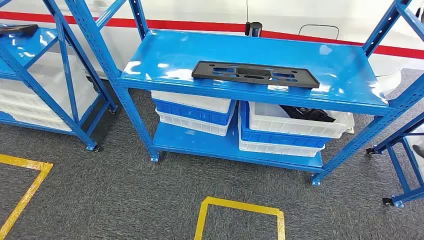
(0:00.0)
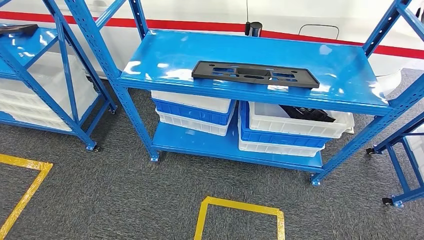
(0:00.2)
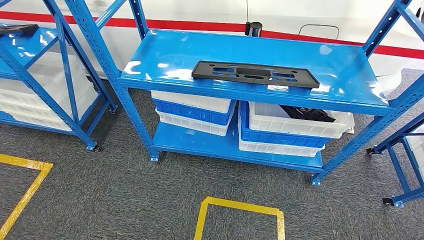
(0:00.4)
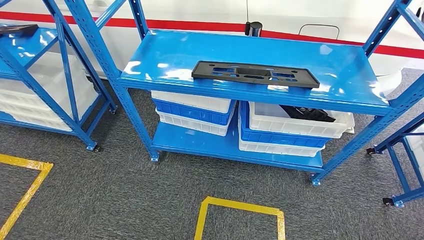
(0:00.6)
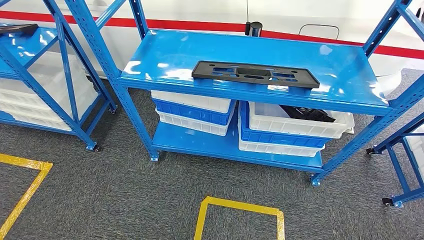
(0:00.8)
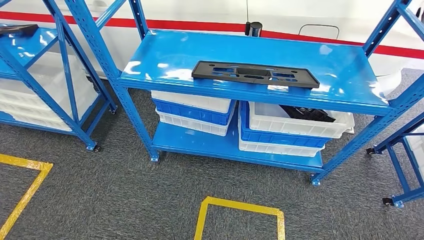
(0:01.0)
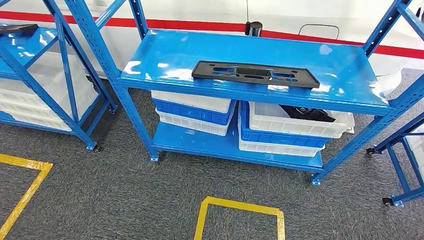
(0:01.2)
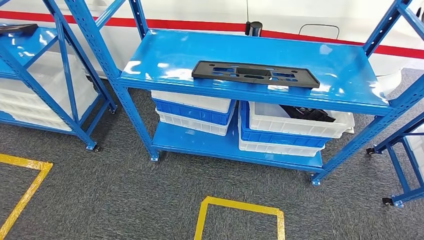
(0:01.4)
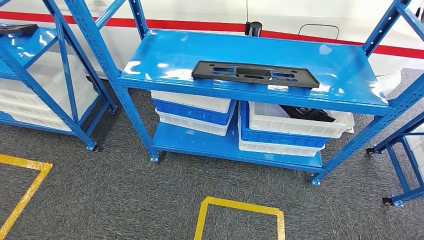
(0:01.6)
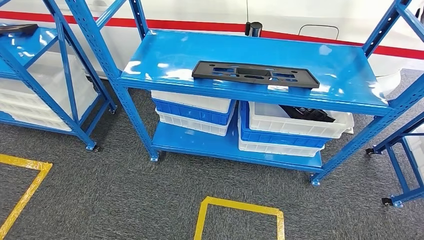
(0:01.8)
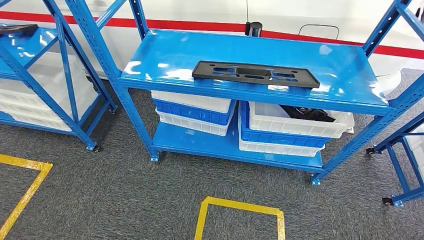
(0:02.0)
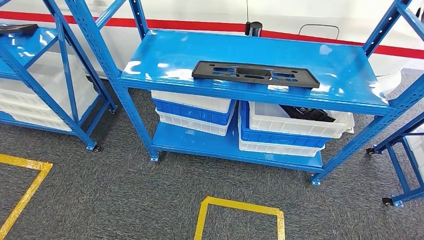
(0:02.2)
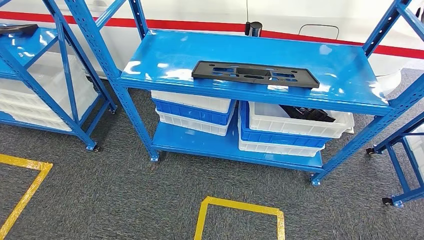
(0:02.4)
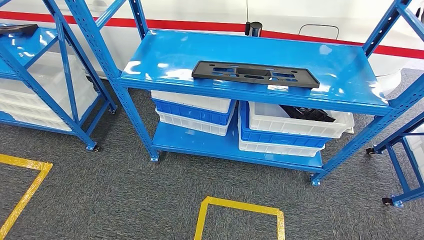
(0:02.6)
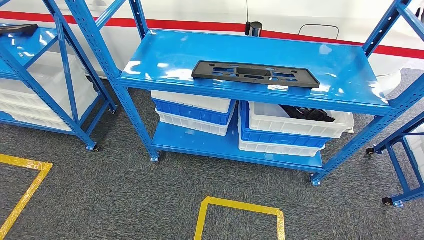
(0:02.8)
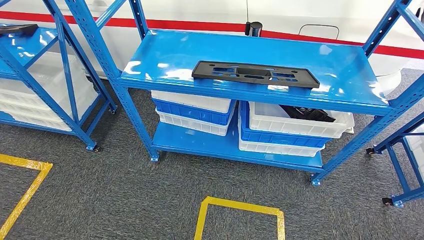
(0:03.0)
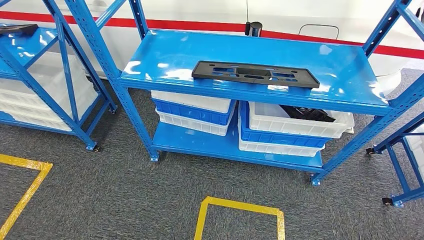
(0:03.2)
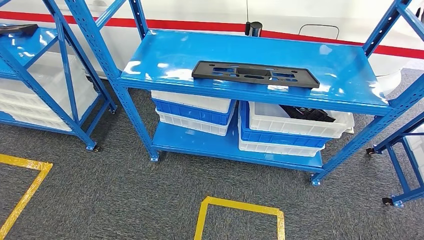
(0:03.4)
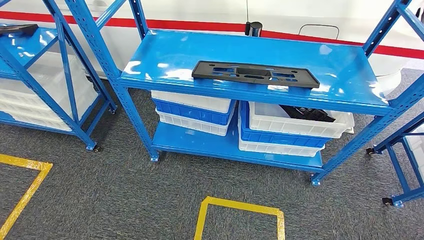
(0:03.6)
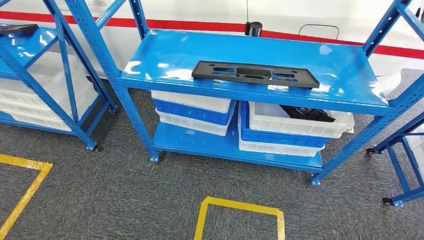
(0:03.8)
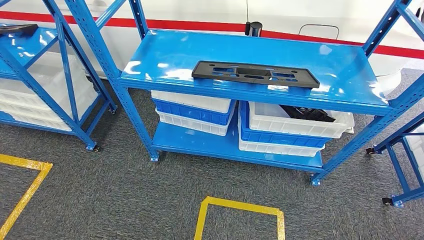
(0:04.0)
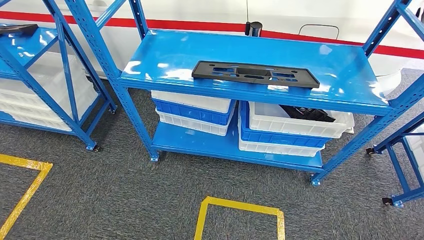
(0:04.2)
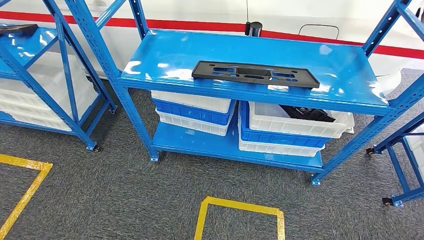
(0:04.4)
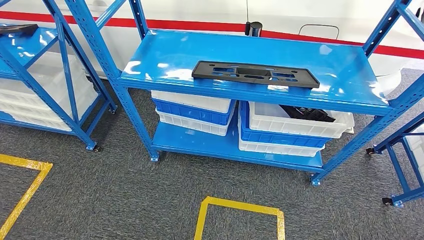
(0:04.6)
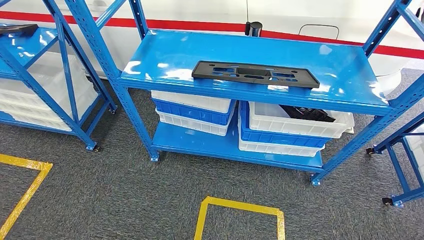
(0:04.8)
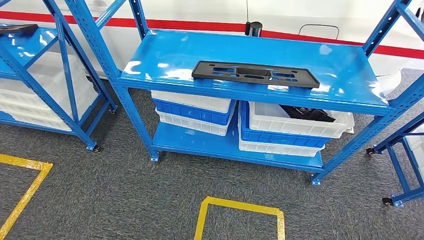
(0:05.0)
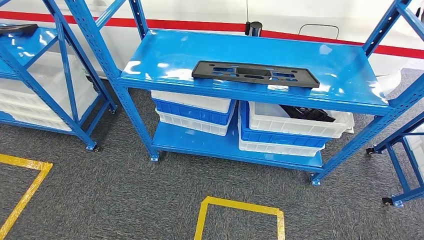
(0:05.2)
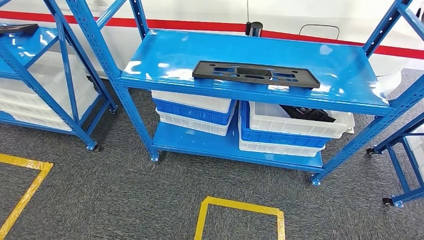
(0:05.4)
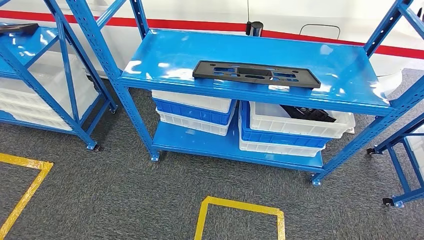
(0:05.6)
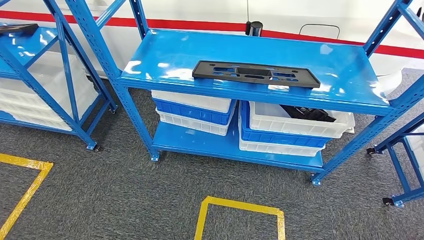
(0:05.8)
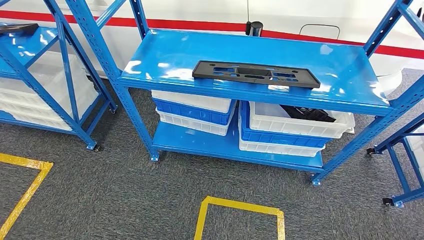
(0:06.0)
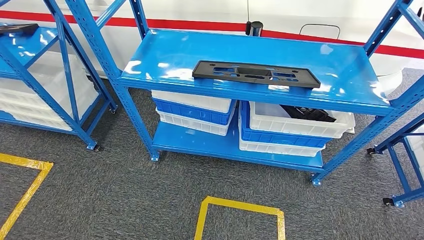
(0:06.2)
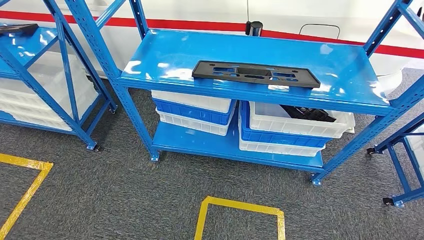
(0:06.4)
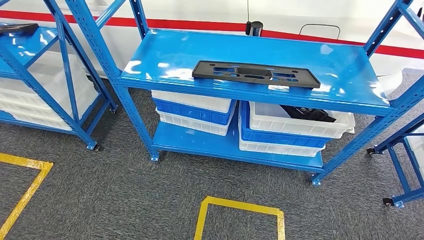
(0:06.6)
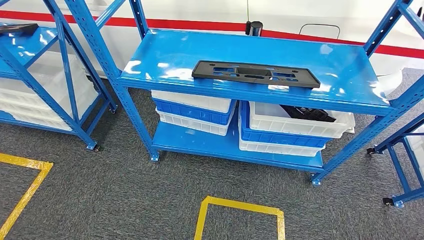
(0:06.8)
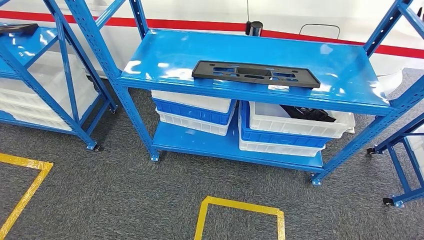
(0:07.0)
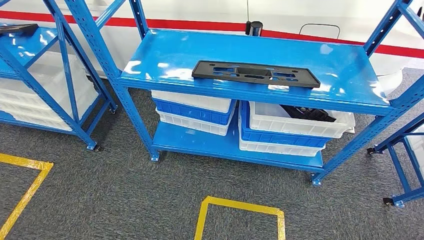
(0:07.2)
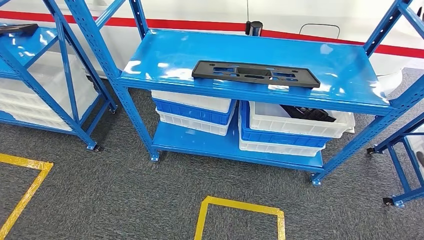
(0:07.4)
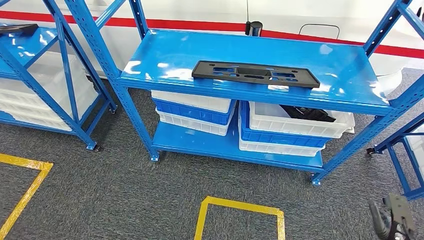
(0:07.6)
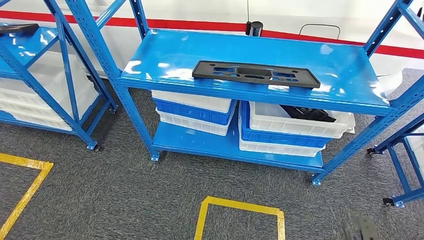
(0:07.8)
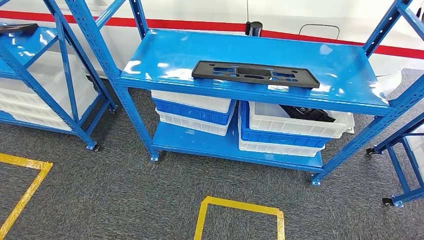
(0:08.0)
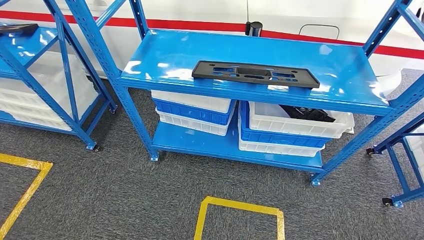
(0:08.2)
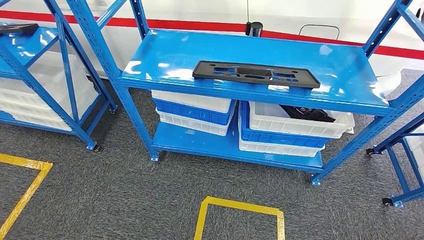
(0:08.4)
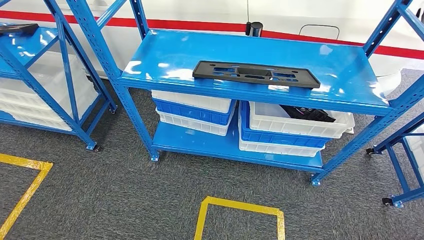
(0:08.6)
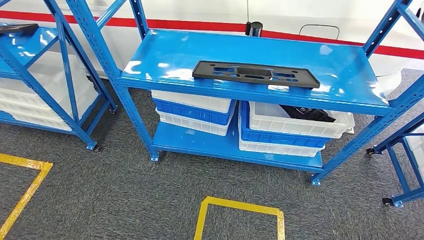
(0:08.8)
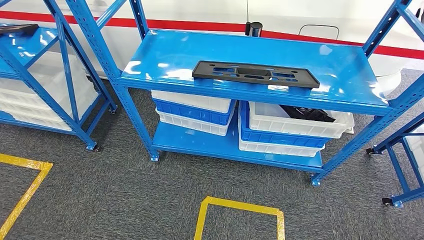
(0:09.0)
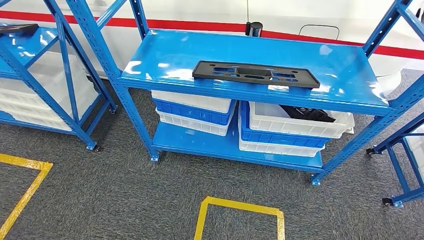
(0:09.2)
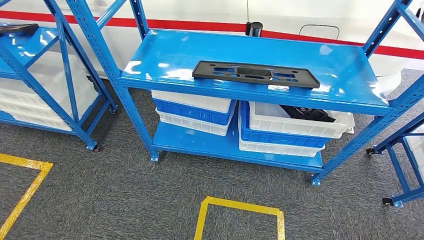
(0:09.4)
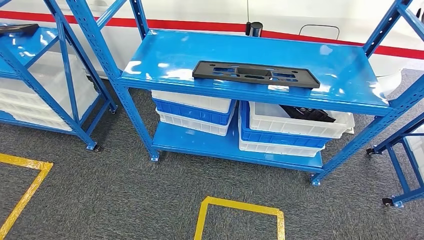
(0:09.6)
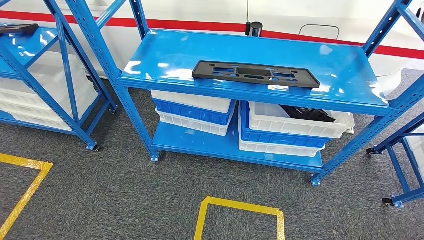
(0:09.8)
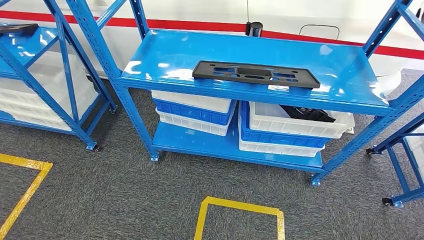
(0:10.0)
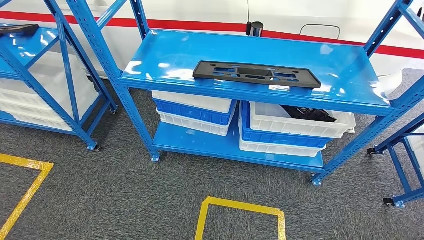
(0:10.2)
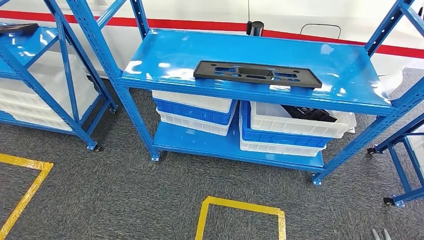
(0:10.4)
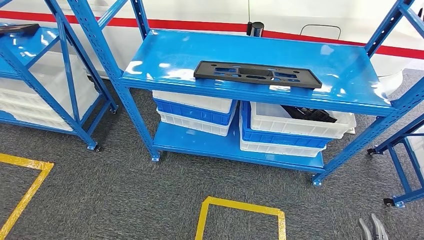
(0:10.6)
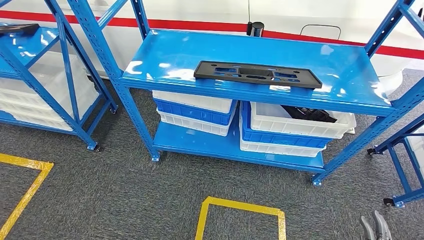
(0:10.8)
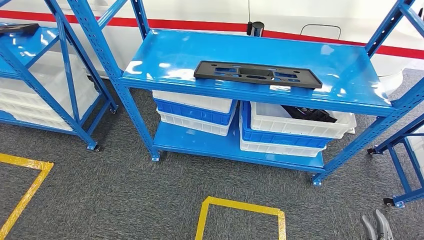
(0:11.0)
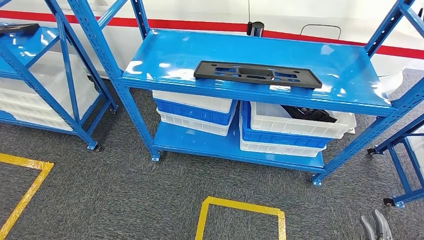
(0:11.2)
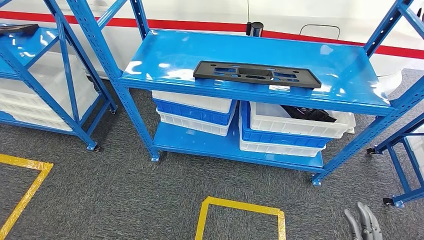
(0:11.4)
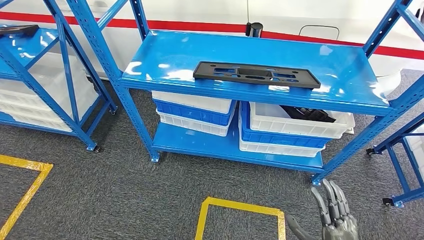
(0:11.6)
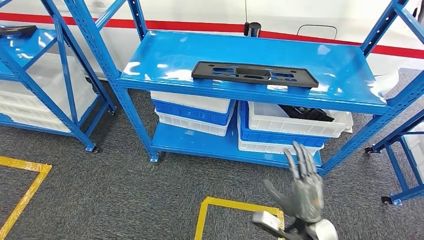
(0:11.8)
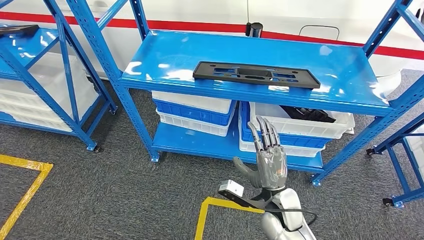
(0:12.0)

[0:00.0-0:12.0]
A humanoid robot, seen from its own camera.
0:03.0 to 0:04.4: Neither hand changes place.
0:04.4 to 0:06.0: The right hand shifts some 15 cm to the right and forward.
0:06.0 to 0:07.6: The right hand goes some 50 cm downward.
0:07.6 to 0:09.0: The right hand goes approximately 35 cm to the left, backward and downward.
0:09.0 to 0:10.4: The left hand goes approximately 10 cm to the right. Meanwhile the right hand travels upward and to the right by roughly 15 cm.
0:10.4 to 0:12.0: The right hand travels forward, to the left and upward by approximately 30 cm.

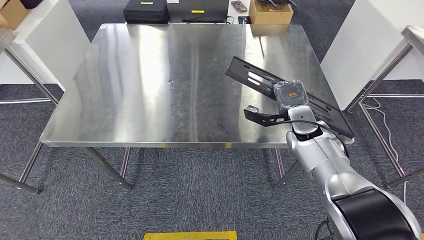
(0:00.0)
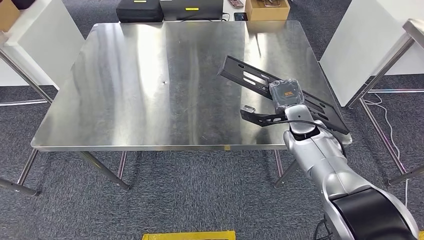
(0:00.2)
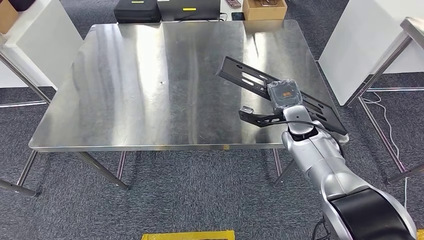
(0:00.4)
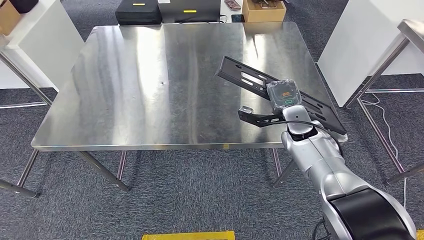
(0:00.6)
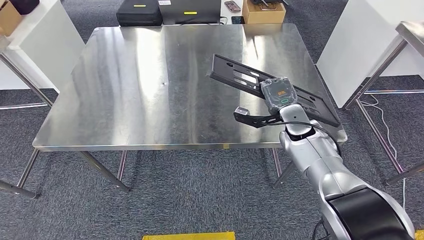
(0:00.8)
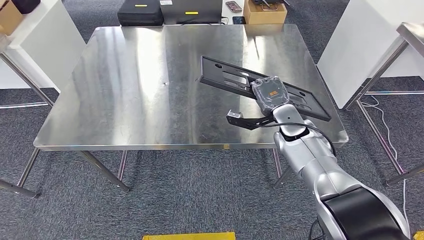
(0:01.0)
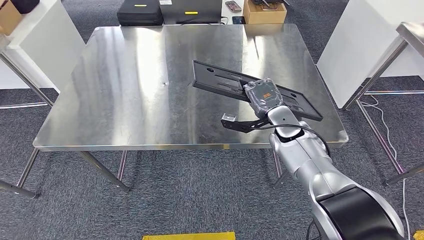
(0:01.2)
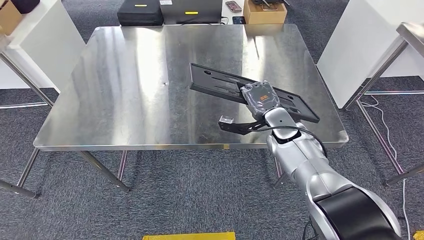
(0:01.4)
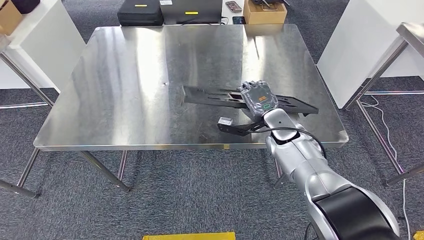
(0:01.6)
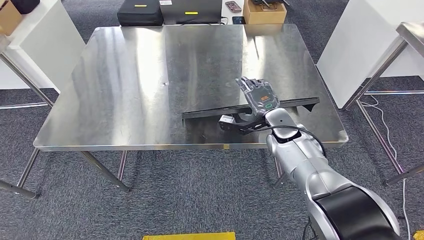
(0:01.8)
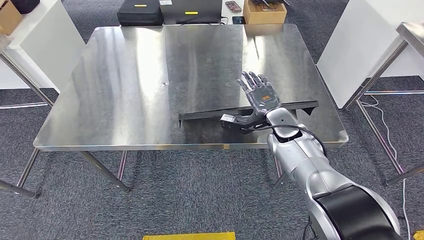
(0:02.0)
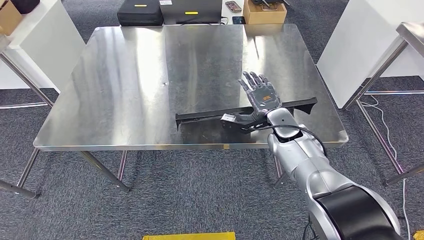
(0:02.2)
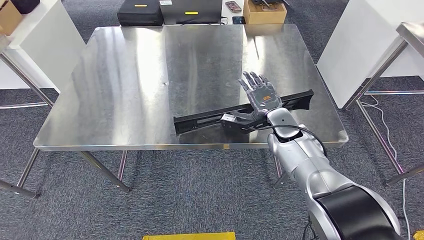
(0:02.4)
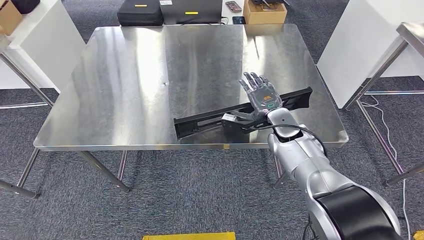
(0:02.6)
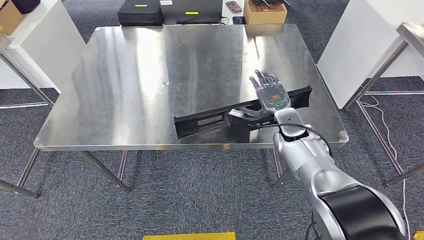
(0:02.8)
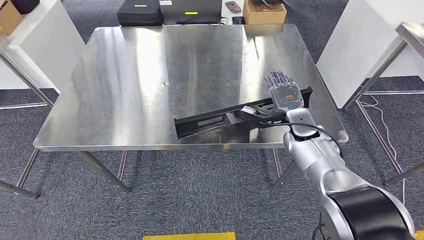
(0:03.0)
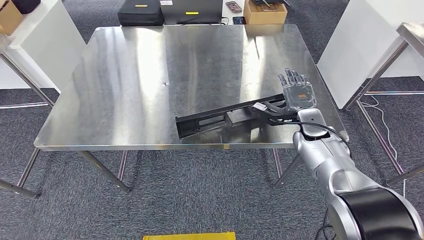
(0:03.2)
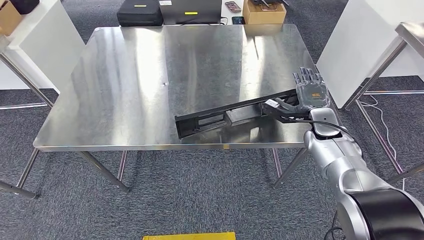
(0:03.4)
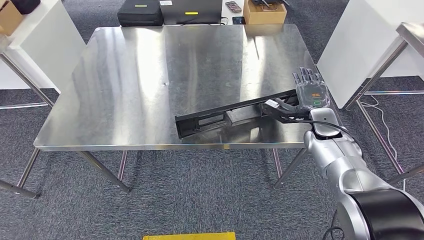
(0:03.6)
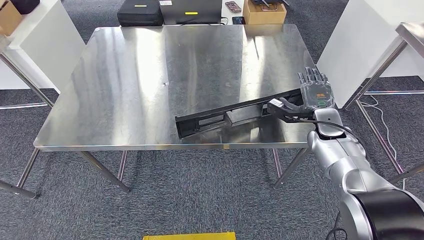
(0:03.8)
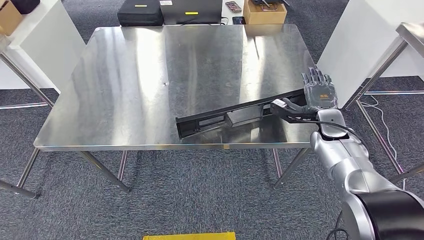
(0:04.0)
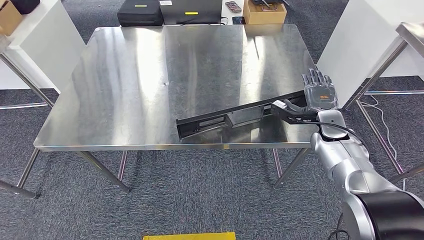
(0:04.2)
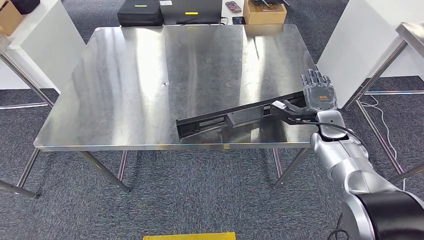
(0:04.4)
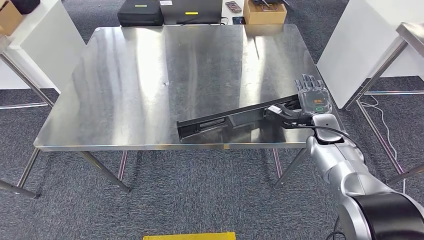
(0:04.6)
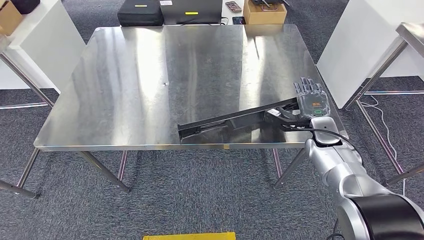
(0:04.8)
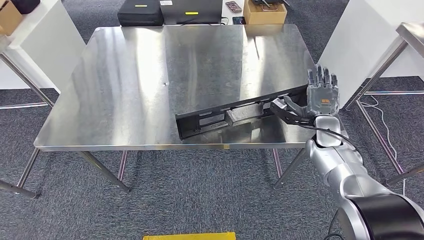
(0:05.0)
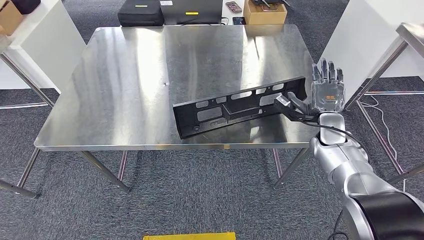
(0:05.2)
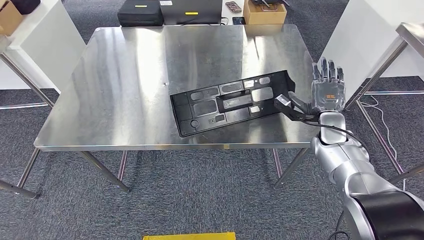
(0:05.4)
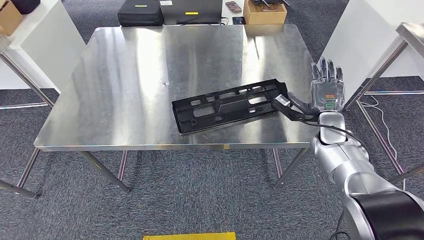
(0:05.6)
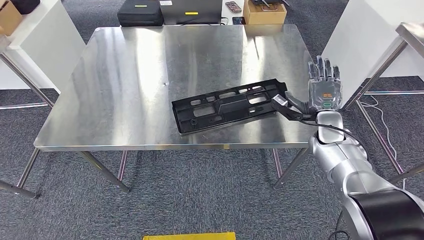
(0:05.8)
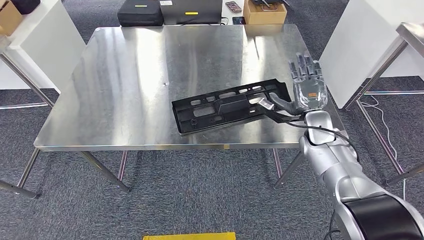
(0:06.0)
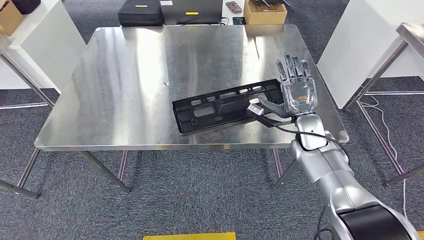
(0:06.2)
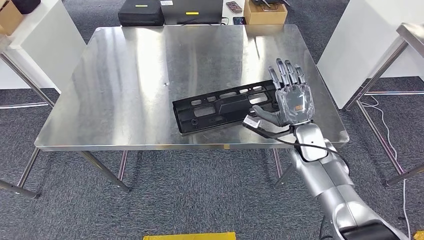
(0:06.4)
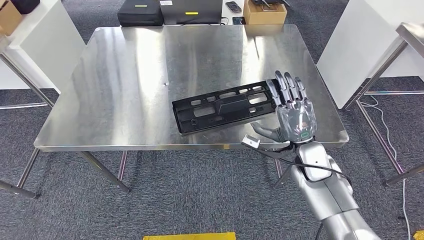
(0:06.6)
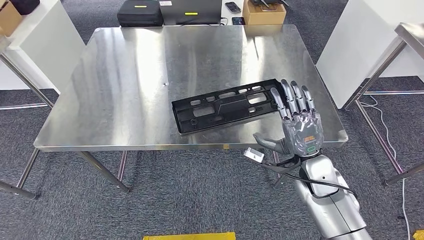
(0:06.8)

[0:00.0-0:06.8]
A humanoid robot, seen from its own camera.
0:01.4 to 0:02.8: There are only small adjustments of the hands.
0:02.8 to 0:04.0: The right hand moves to the right, some 10 cm.
0:04.0 to 0:05.4: The hands stay close to where they were, moving slightly.
0:05.4 to 0:06.8: The right hand moves backward and to the left, some 15 cm.
